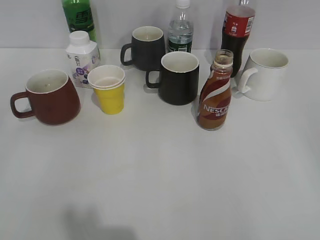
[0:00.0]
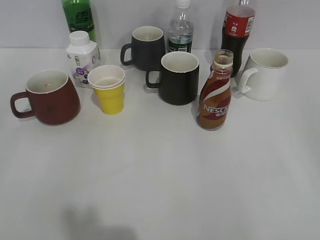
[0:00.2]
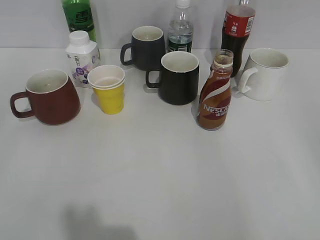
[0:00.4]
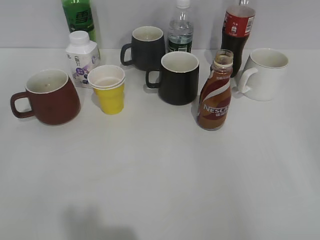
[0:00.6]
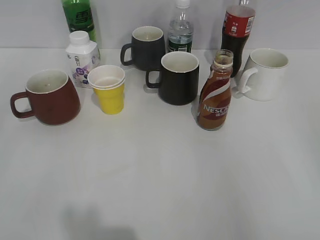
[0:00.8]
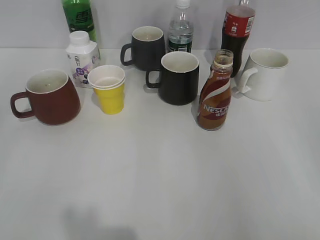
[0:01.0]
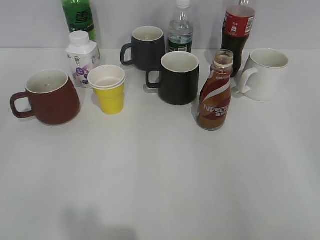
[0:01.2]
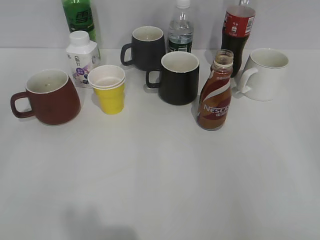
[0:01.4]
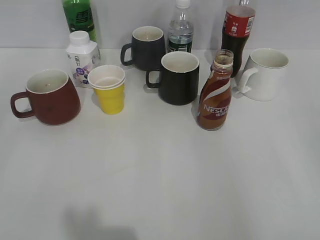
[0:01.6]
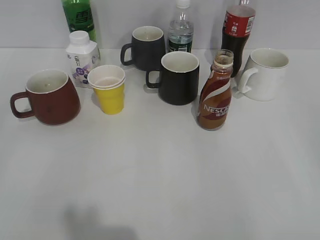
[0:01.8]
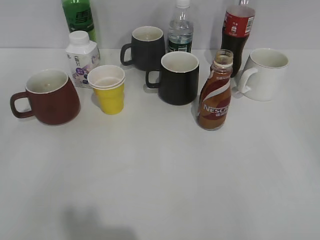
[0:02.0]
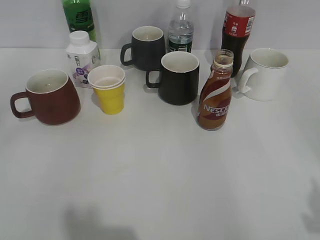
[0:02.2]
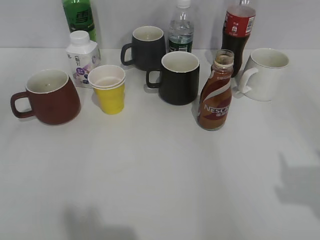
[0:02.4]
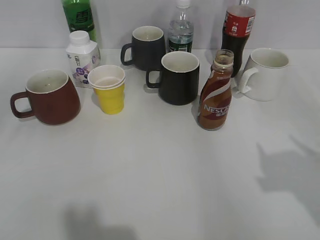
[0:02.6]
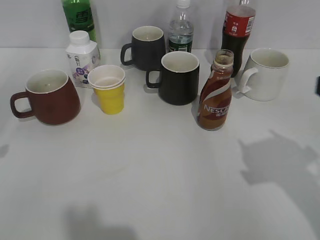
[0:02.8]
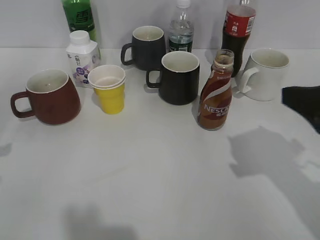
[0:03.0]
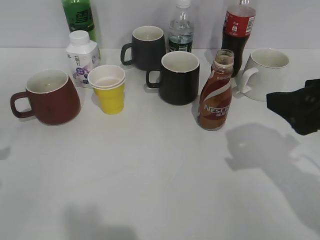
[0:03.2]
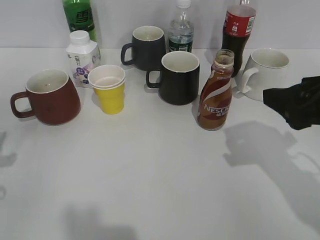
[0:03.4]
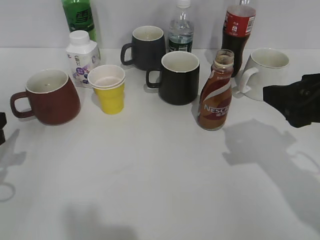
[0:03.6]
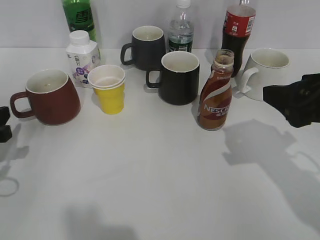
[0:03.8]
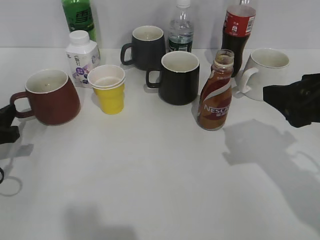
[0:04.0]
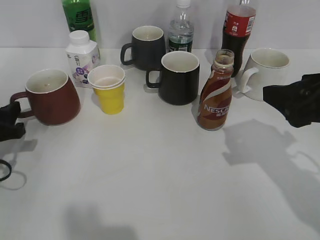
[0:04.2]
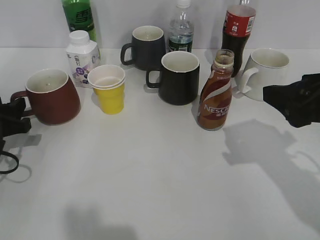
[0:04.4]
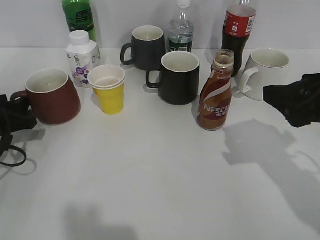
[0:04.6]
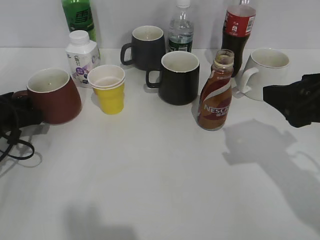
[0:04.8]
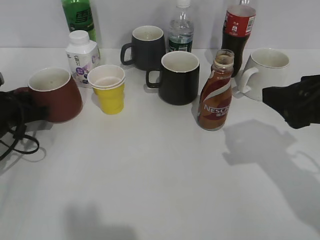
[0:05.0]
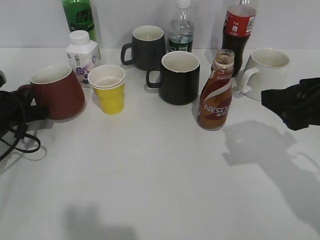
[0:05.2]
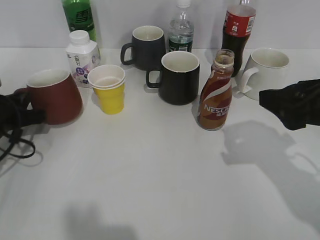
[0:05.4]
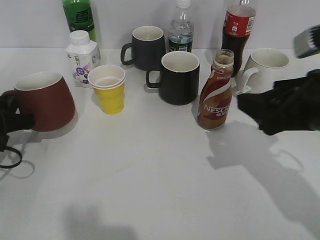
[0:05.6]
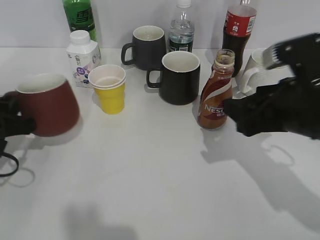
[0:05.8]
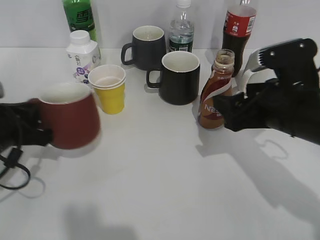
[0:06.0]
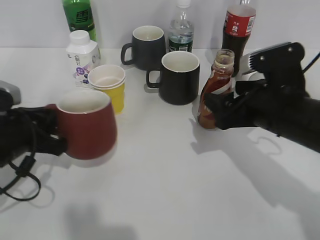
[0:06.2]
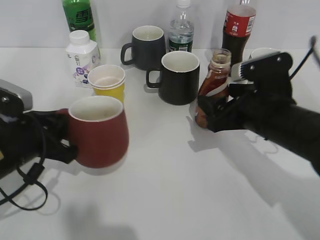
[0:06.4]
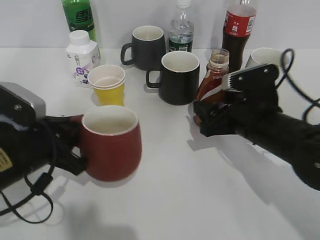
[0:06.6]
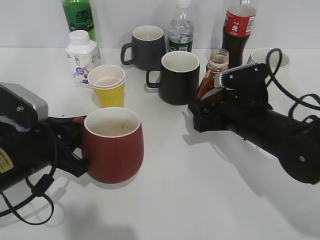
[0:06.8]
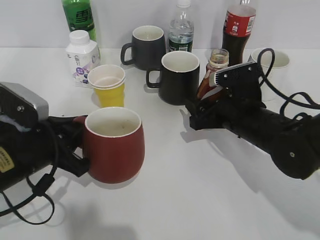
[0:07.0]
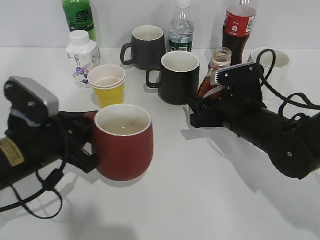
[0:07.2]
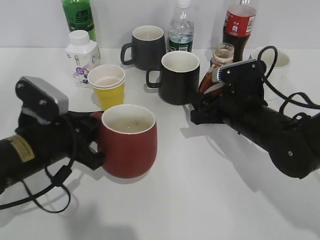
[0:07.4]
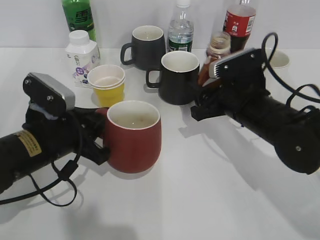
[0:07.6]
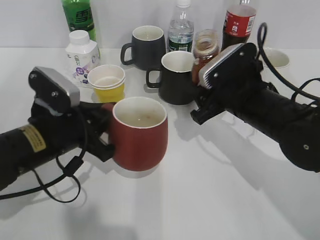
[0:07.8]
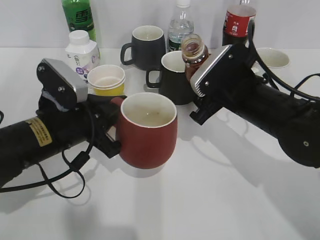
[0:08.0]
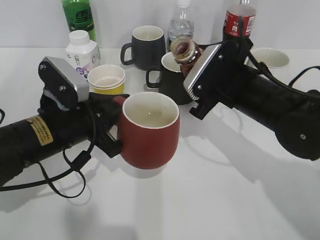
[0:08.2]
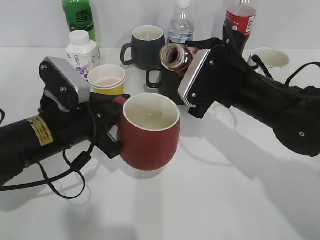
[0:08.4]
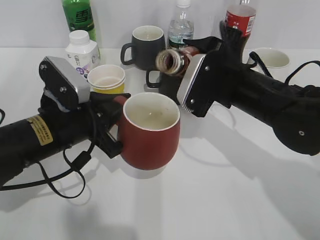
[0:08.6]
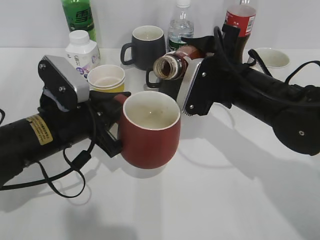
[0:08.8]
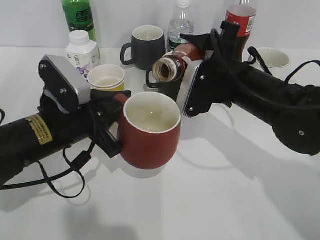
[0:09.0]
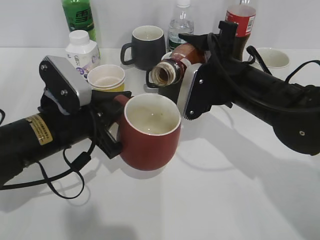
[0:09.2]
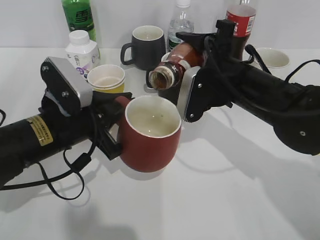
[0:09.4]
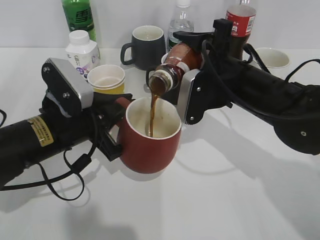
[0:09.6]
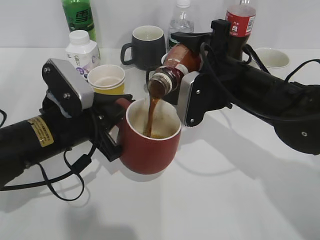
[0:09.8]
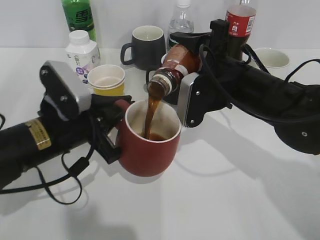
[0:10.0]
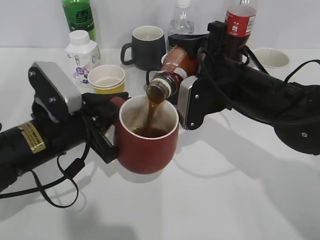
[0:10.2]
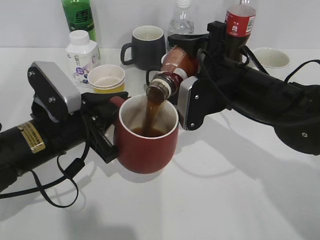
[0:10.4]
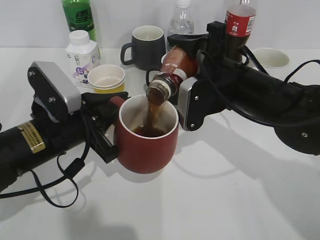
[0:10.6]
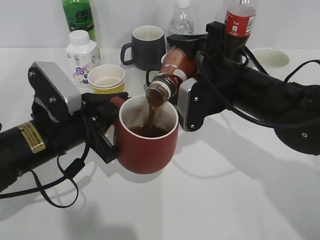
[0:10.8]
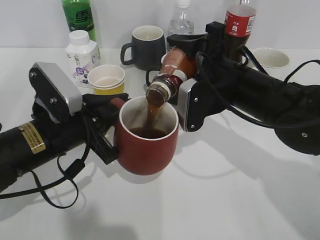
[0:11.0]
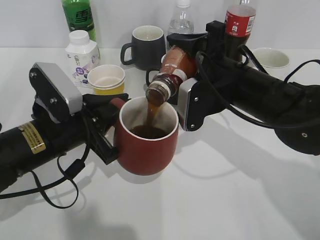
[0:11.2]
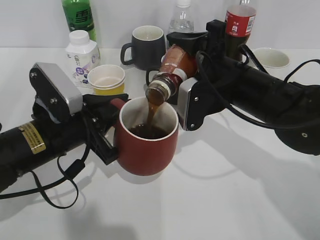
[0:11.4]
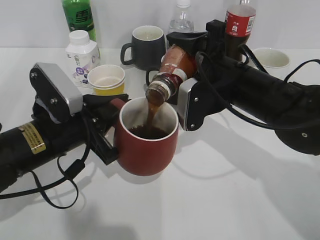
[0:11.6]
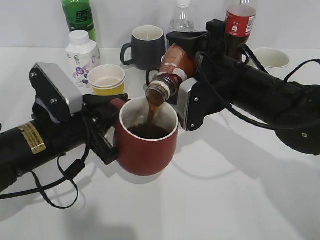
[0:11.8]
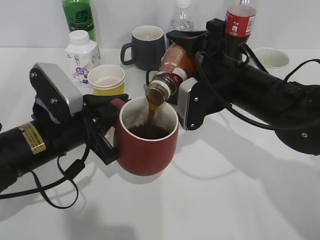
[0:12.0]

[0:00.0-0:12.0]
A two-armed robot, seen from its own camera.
Step, 0:01.8 to 0:05.2: Grasp the red cup with left gripper.
Step, 0:05.4 to 0:07.2: Grasp the bottle with coffee with right gripper.
0:01.6 to 0:03.0: The right gripper goes roughly 20 cm forward and to the left.
0:03.0 to 0:04.4: The left gripper goes some 10 cm downward and forward, and opens its fingers.
0:04.4 to 0:06.0: The left gripper closes up. Meanwhile the right gripper shifts approximately 5 cm downward.
0:06.0 to 0:07.6: The left gripper moves to the right, about 10 cm, while the right gripper goes some 10 cm forward and downward, and closes.
0:07.6 to 0:09.0: The right gripper shifts by approximately 5 cm.
0:09.0 to 0:10.4: The grippers stay close to where they were, moving slightly.
0:10.4 to 0:12.0: Both grippers stay about where they are.

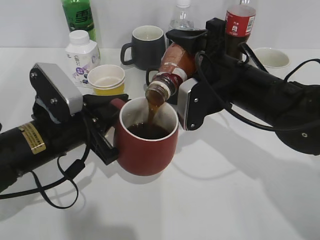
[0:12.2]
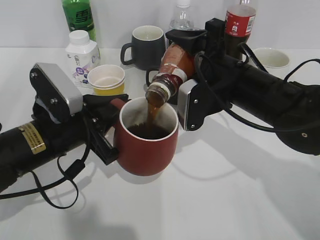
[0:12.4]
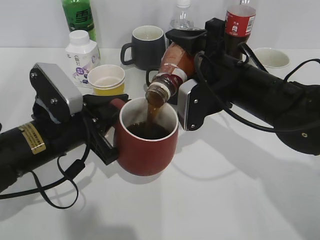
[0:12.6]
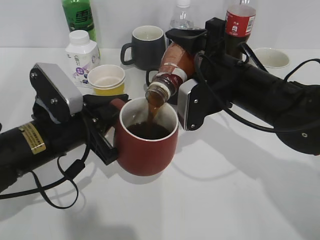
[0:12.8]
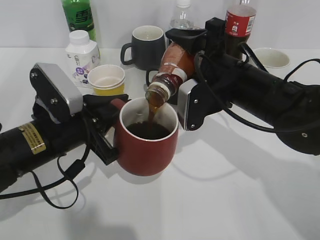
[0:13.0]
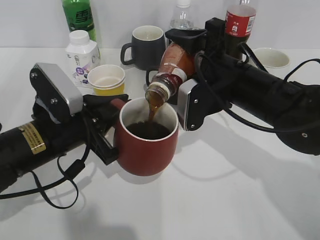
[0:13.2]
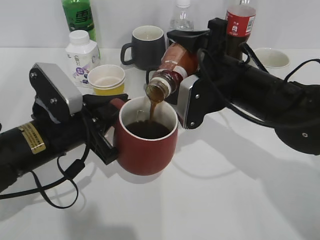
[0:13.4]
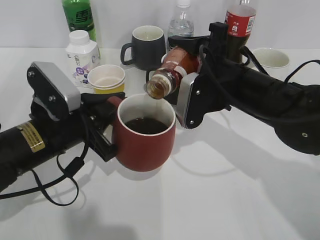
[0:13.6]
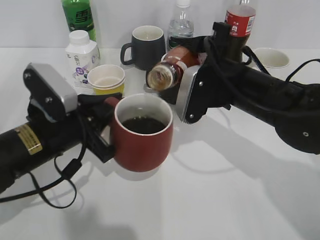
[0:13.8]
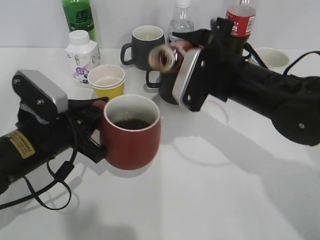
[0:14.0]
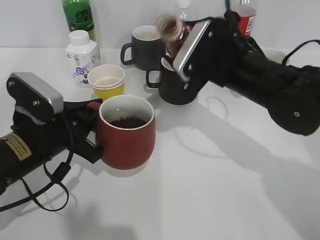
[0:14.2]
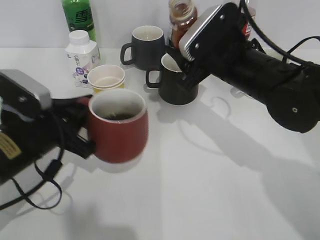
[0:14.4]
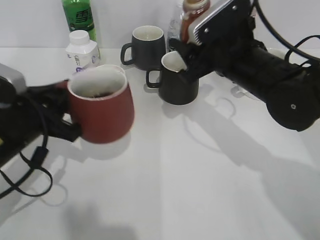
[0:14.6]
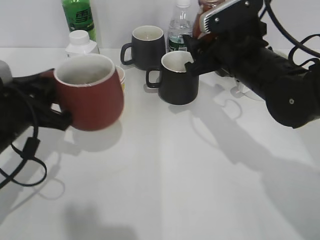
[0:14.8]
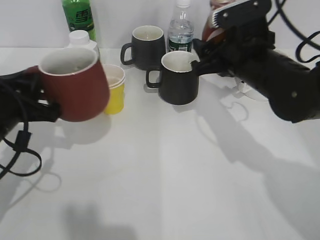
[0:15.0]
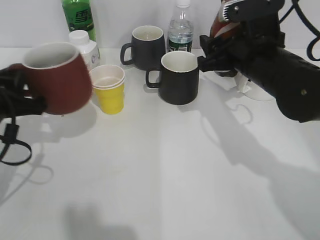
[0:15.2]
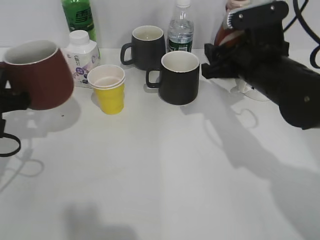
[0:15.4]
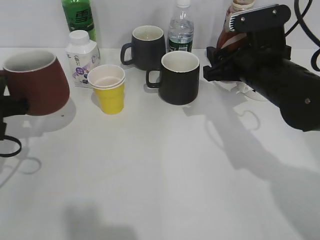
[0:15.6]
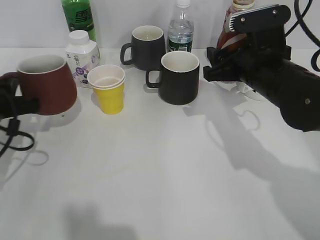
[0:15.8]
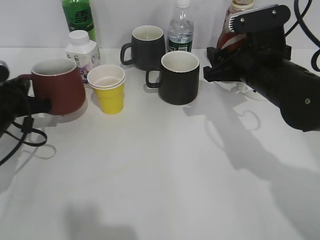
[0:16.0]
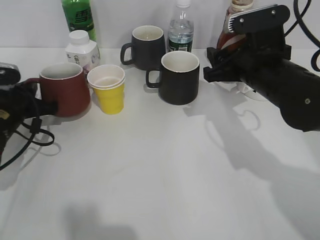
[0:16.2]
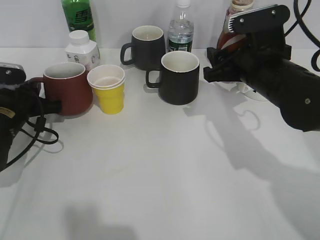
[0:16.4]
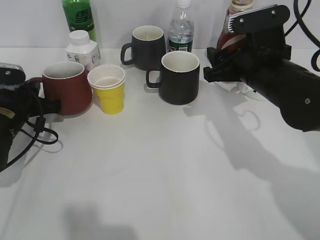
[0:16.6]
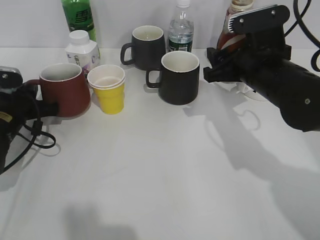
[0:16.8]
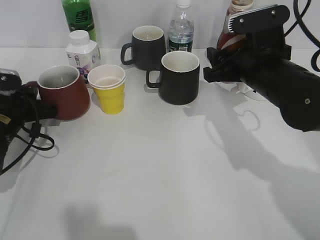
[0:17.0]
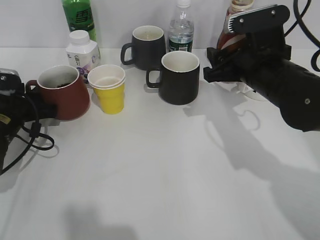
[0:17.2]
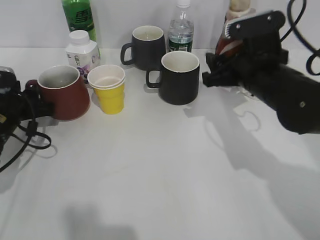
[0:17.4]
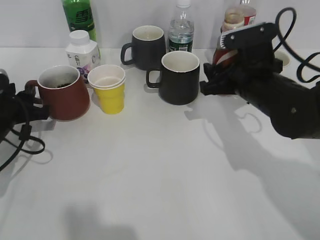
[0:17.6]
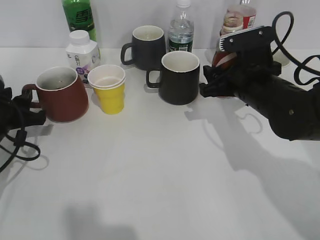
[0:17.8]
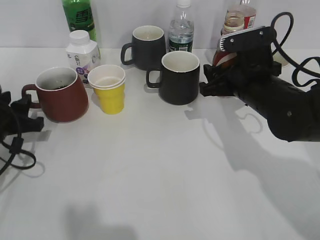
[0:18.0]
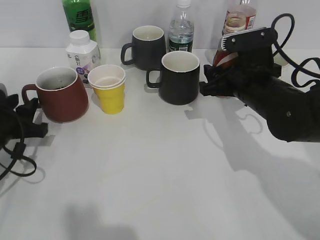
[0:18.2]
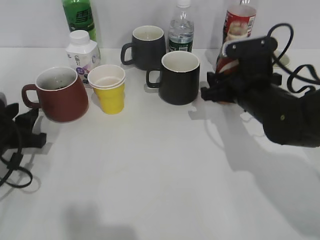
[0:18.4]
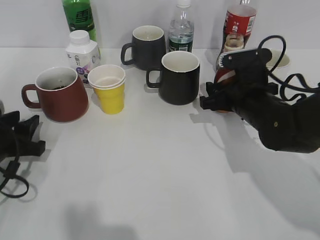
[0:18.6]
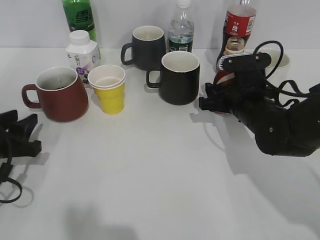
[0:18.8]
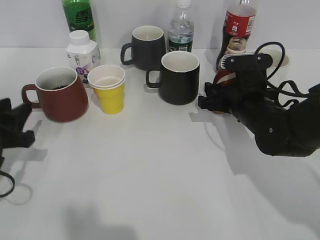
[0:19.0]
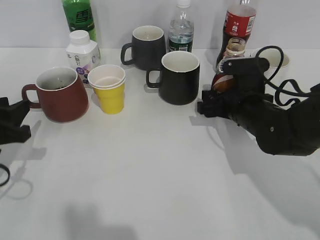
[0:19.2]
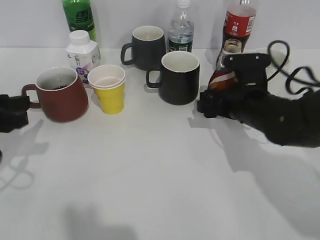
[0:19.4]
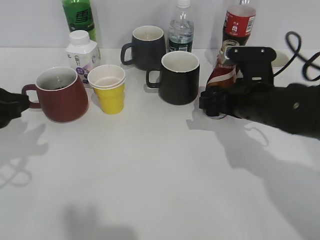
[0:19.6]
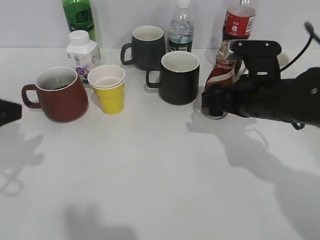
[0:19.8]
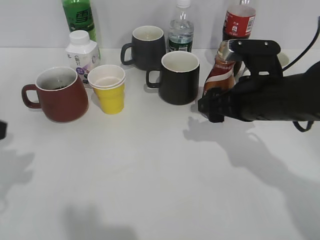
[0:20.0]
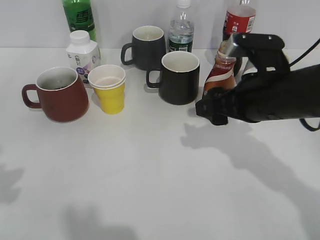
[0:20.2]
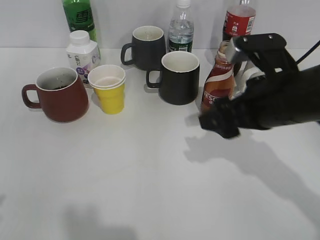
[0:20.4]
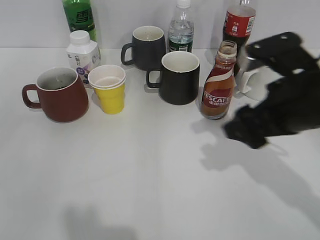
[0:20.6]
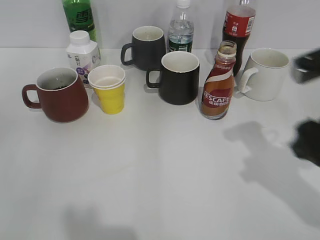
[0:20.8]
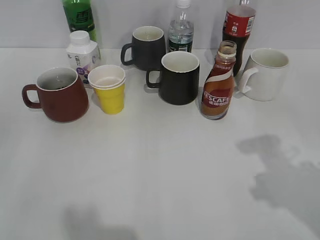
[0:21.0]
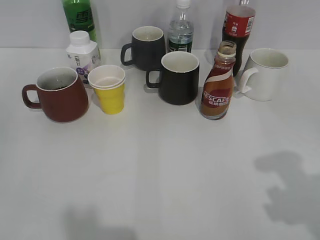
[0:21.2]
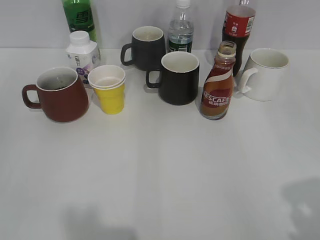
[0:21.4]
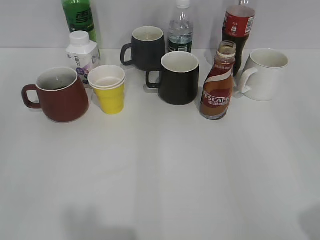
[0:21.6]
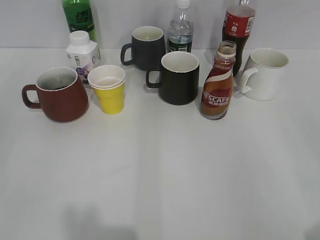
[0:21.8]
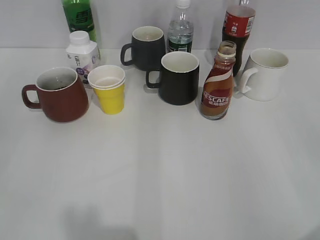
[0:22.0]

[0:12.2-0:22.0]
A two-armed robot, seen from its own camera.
Step, 0:14.0 to 0:18.0: Place the red cup on the table with left gripper.
Step, 0:18.2 to 0:20.0: Place the coffee bottle on the table with right gripper.
0:12.2 to 0:13.6: The grippers stay close to where they were, moving slightly.
0:13.6 to 0:15.0: The left gripper heads to the left, covering about 5 cm.
0:15.0 to 0:16.4: The left gripper goes roughly 10 cm forward and downward.
0:16.4 to 0:17.8: The left gripper opens its fingers.
0:17.8 to 0:19.2: The right gripper travels downward by about 5 cm, and opens. Meanwhile the left gripper heads backward, covering approximately 5 cm.
0:19.2 to 0:20.6: The left gripper heads backward and upward, covering some 20 cm. The right gripper is displaced upward and backward by about 15 cm.
0:20.6 to 0:22.0: The left gripper moves backward, some 5 cm; the right gripper heads backward and to the right, covering some 25 cm.
